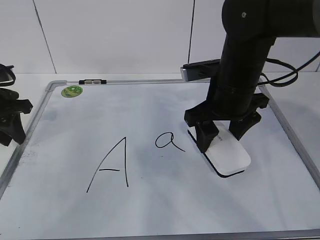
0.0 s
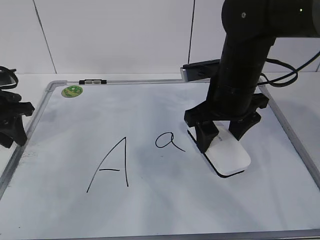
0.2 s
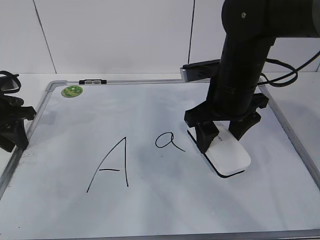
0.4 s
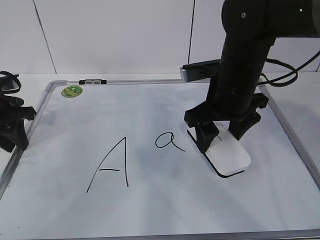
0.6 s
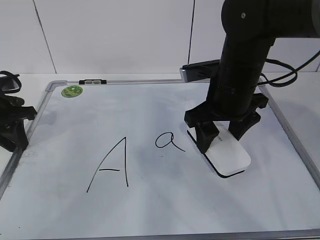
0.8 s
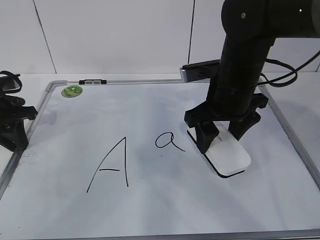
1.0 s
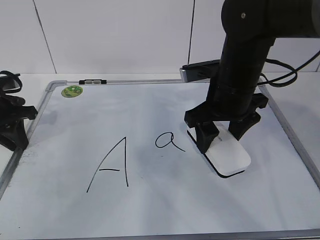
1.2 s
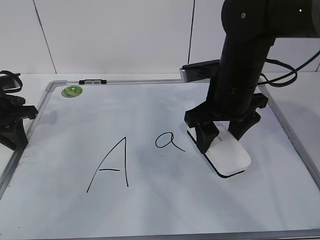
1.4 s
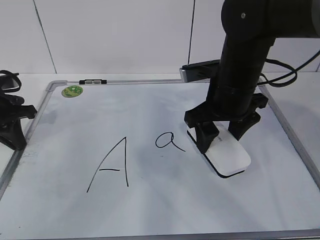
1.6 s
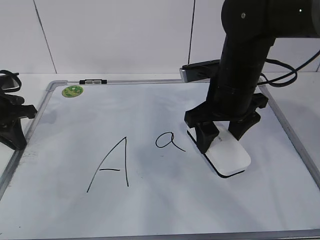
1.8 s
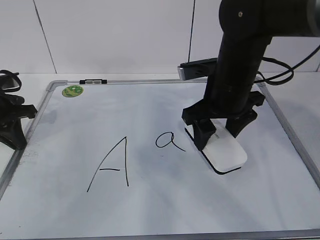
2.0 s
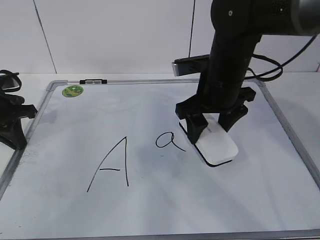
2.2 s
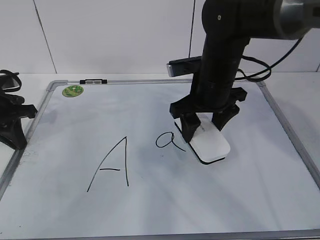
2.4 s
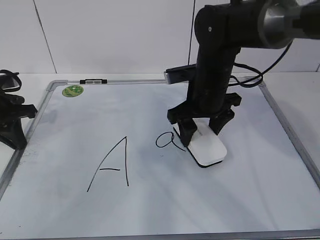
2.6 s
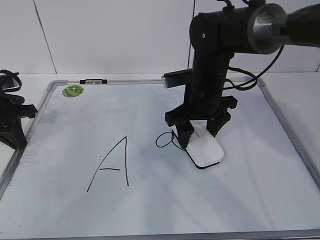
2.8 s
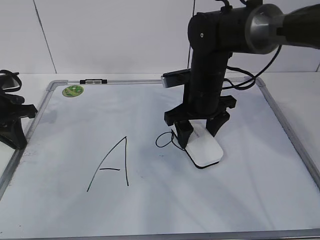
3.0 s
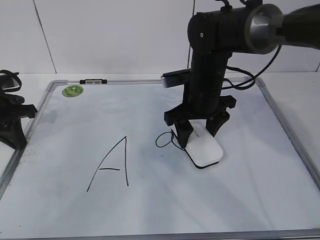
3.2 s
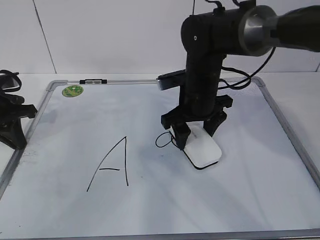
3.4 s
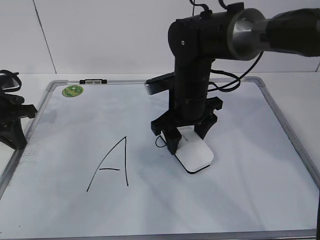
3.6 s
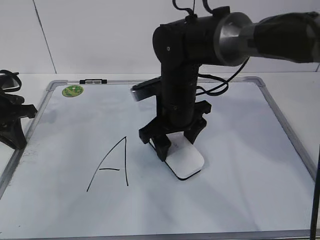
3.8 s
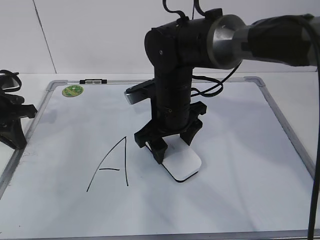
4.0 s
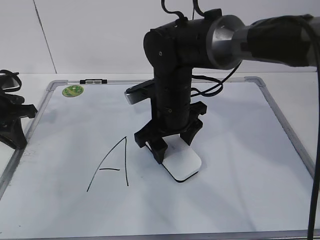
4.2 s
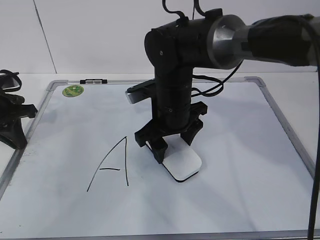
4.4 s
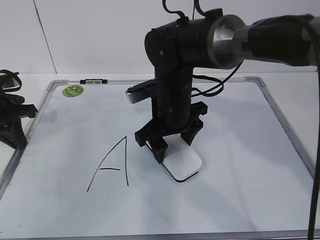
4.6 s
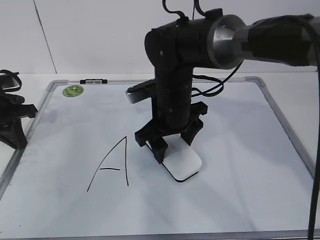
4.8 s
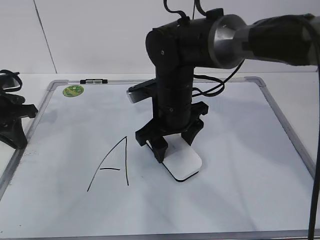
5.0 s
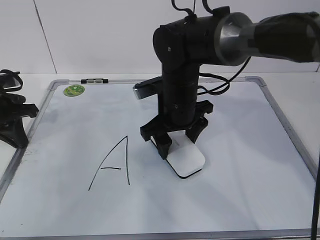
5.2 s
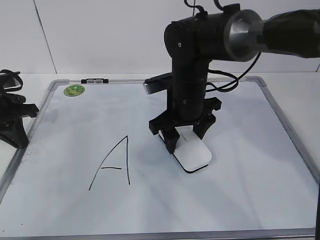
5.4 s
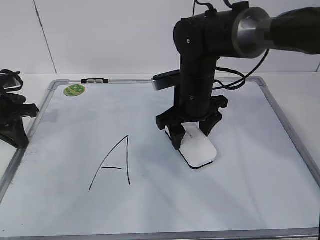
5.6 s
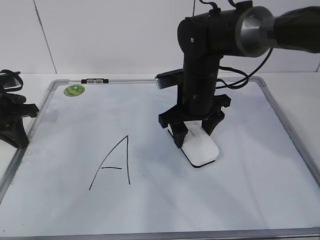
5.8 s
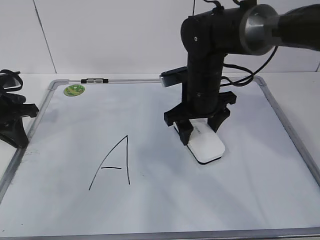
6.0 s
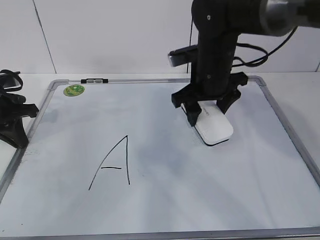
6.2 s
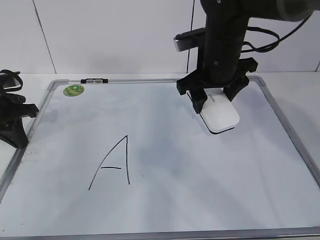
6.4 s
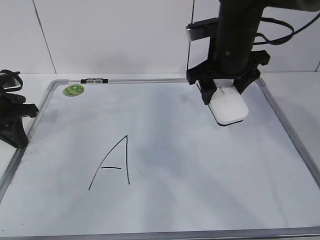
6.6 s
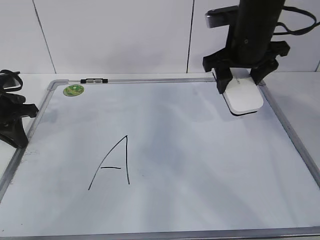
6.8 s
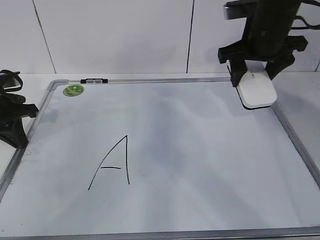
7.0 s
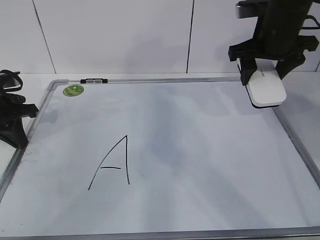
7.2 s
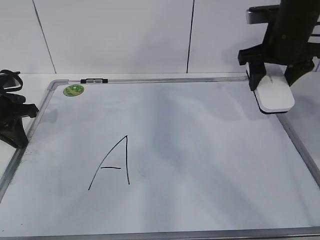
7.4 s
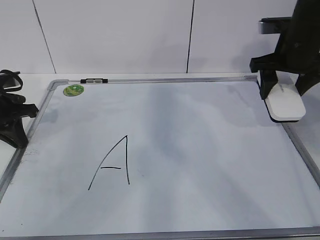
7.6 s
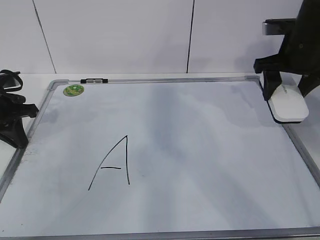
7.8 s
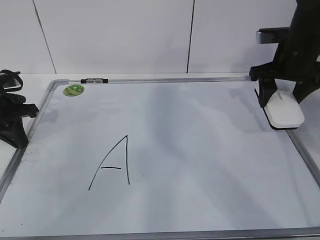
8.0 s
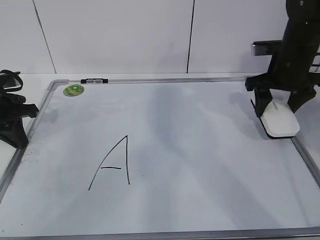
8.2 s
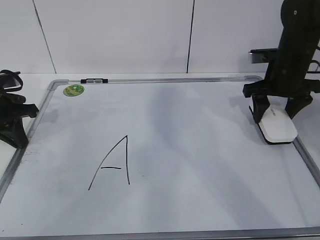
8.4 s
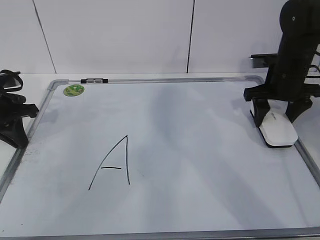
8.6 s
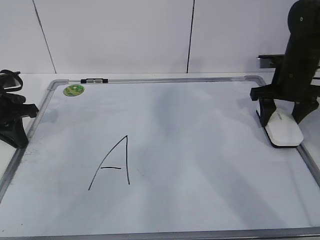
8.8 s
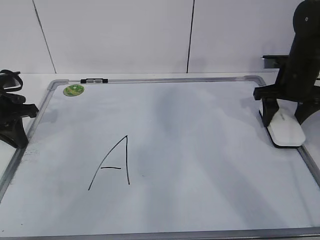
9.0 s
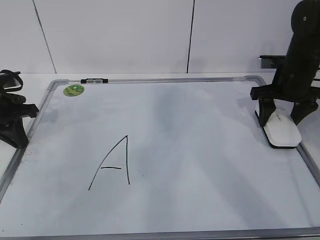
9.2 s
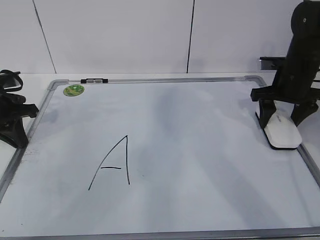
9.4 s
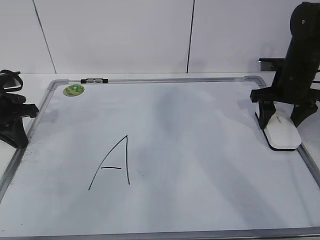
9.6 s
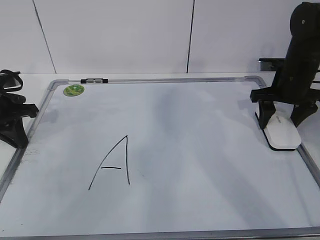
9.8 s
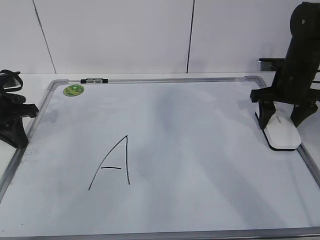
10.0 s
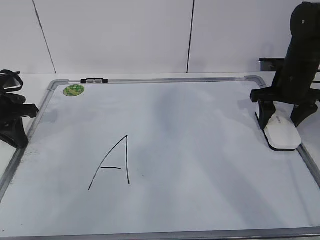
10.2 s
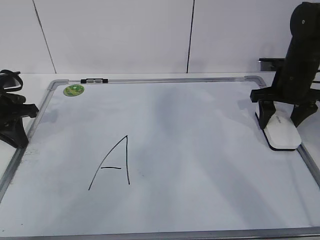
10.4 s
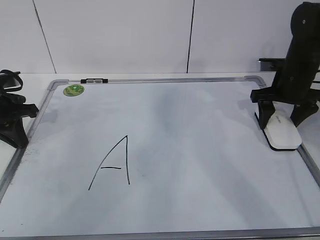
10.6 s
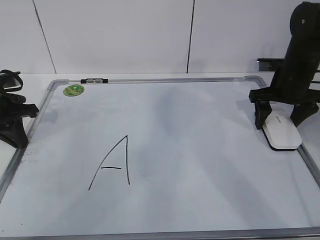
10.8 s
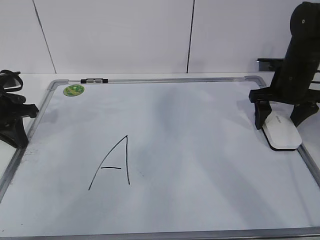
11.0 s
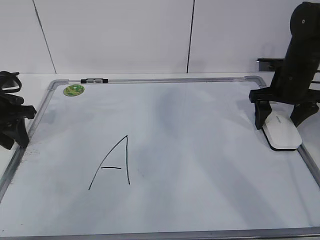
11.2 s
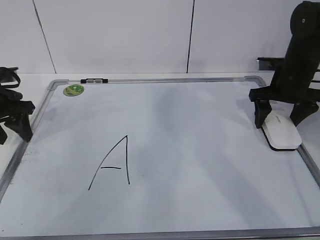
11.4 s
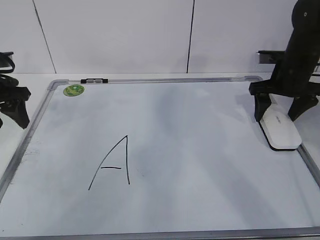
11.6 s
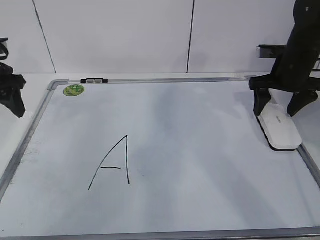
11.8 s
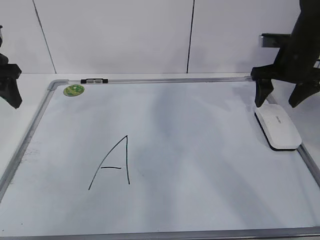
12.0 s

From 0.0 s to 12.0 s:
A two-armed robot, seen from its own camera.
Task of the whole recording: pick up the eraser on the blackboard and erase the letter "a".
Step, from 0.0 s to 2.8 s: Erase the letter a with your right hand.
Step, from 3.0 s to 6.6 s: Put down the eraser with your right hand.
From 0.0 s to 1.6 s: The left gripper closes.
From 1.6 s to 3.0 s: The right gripper goes roughly 5 cm forward.
From 3.0 s to 4.4 s: The right gripper goes about 5 cm to the left.
From 4.4 s to 6.0 s: The right gripper is displaced to the right by approximately 5 cm.
From 6.0 s to 7.6 s: The right gripper travels to the right and upward by roughly 15 cm.
From 7.6 s to 9.0 s: The right gripper goes roughly 5 cm downward.
From 9.0 s to 10.4 s: The two grippers keep their place.
From 10.4 s to 12.0 s: The left gripper heads upward, covering some 10 cm, and opens its fingers. The right gripper opens.

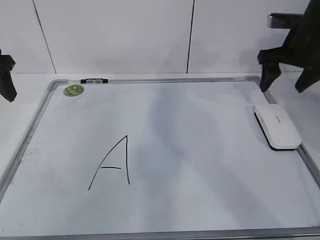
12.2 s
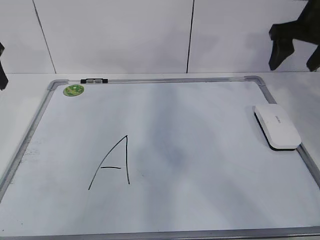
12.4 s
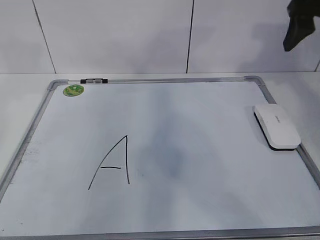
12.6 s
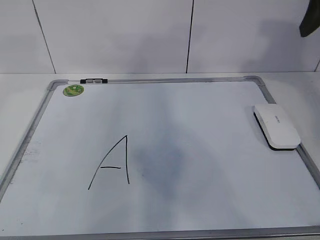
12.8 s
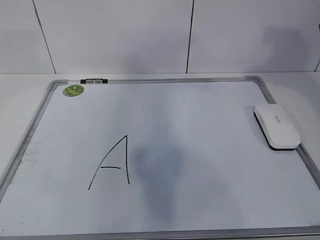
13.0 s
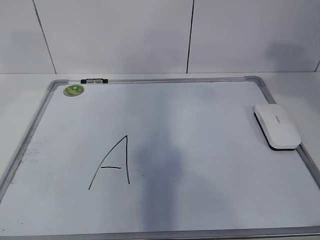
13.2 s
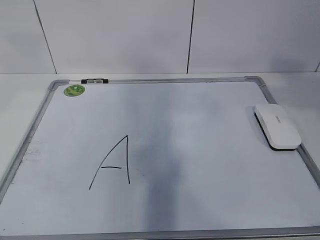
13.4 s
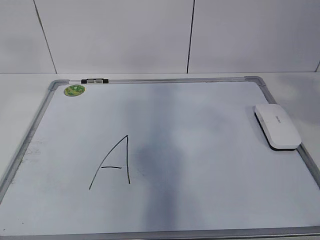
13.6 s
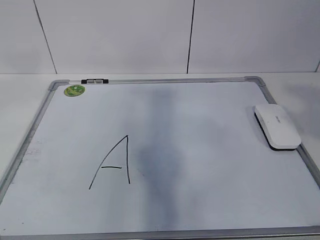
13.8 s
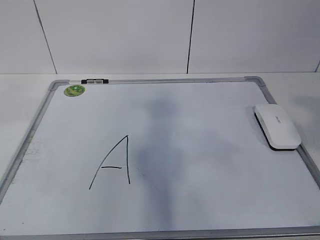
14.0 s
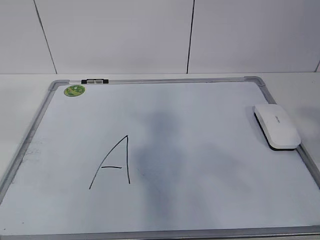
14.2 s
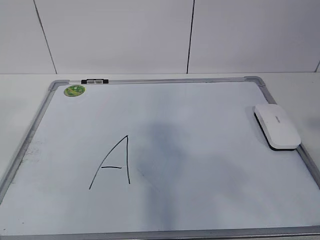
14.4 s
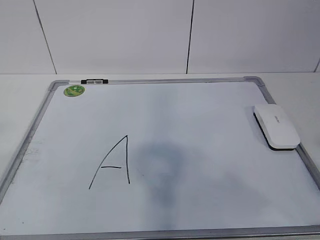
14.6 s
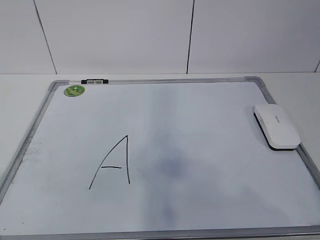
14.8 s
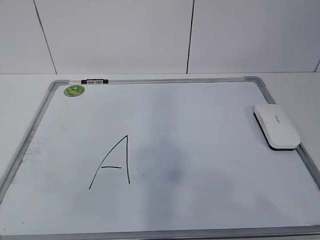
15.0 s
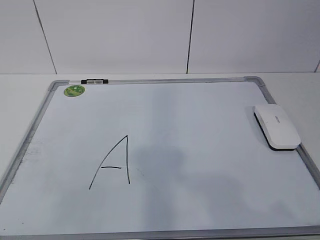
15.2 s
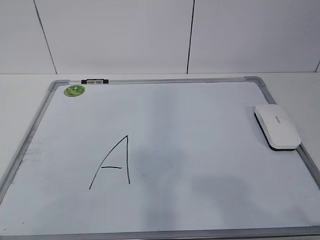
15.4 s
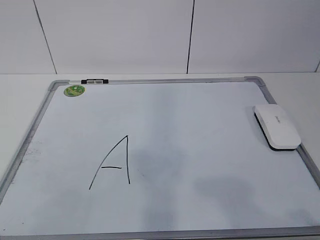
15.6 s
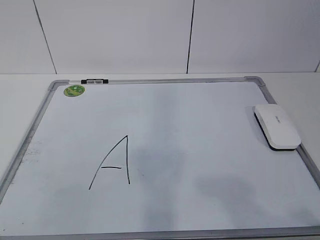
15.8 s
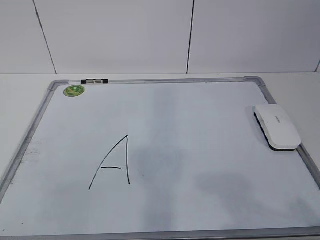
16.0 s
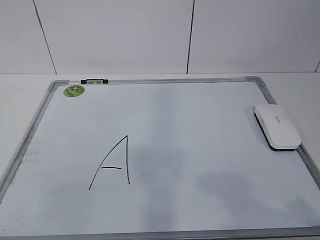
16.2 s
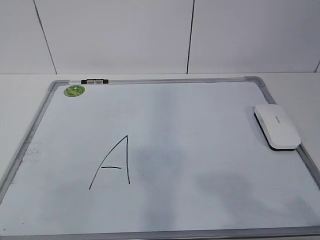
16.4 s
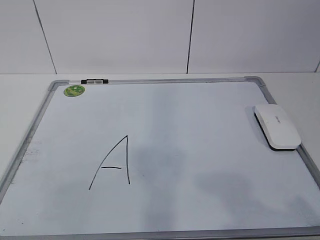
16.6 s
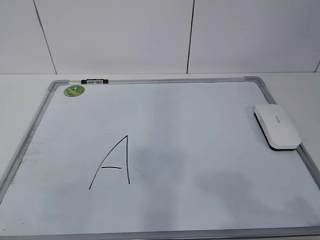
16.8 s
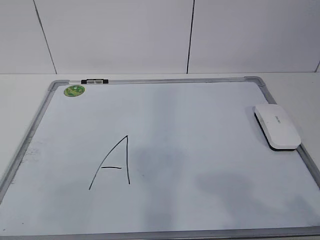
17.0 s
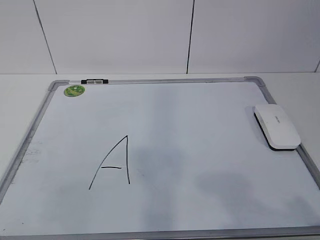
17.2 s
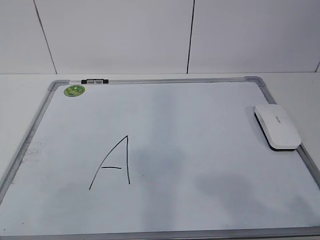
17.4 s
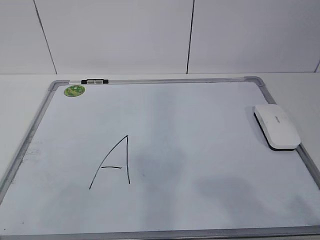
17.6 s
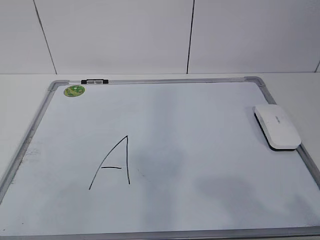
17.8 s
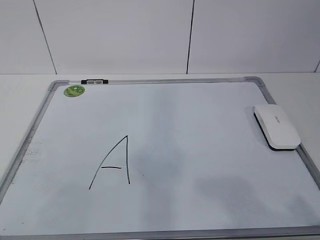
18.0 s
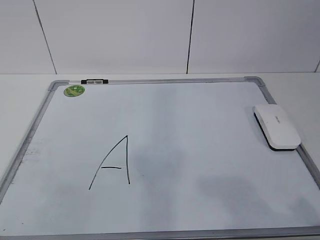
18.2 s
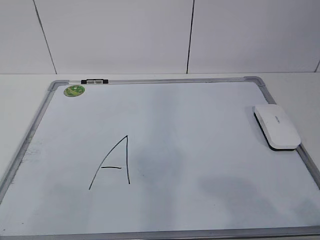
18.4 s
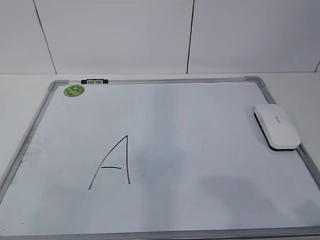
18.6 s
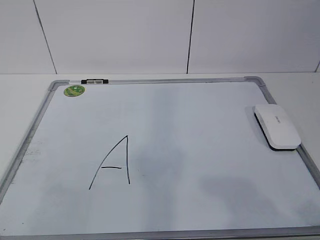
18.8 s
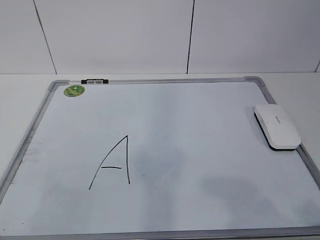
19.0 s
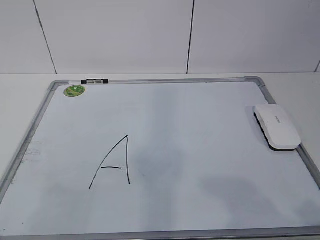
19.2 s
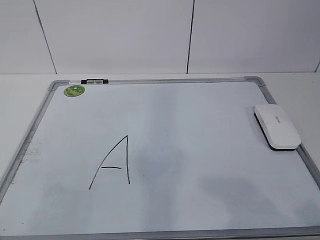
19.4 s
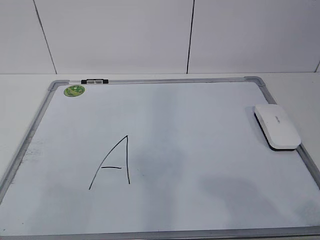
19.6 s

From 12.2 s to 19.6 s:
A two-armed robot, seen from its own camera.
Task of the whole recording: pick up the eraser on the blackboard and erase the letter "a".
From 12.2 s to 13.6 s: The right gripper heads backward and upward, covering some 30 cm. The left gripper is displaced upward and backward by approximately 25 cm.
From 13.6 s to 15.2 s: The two grippers go some 20 cm backward and downward.

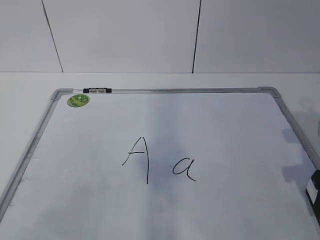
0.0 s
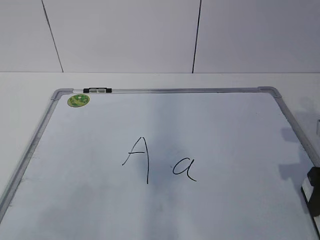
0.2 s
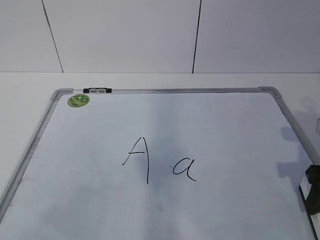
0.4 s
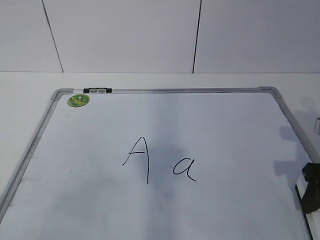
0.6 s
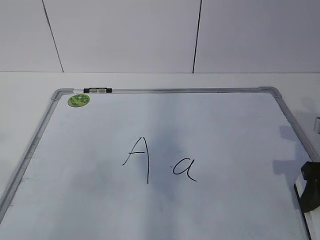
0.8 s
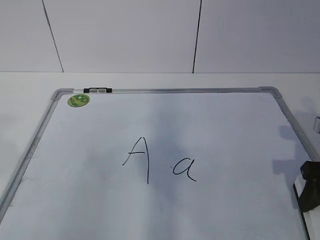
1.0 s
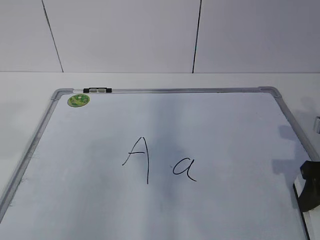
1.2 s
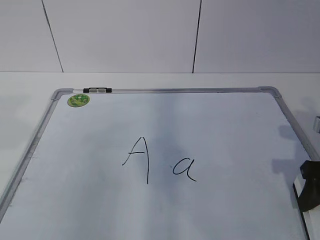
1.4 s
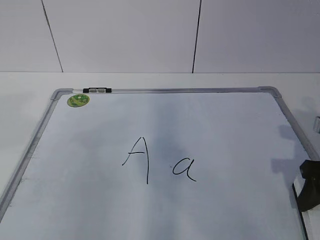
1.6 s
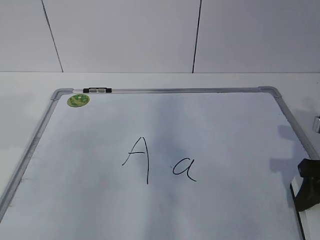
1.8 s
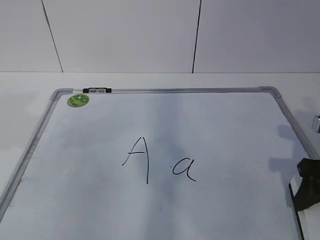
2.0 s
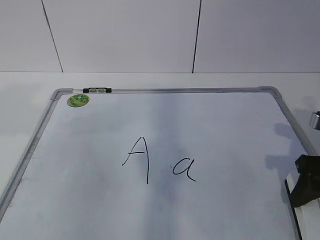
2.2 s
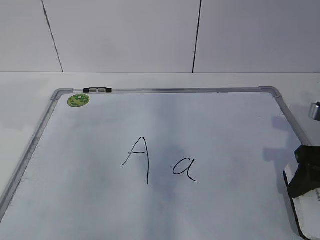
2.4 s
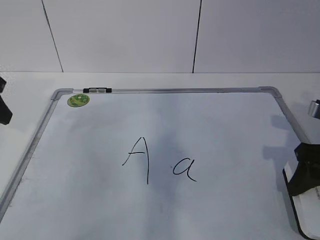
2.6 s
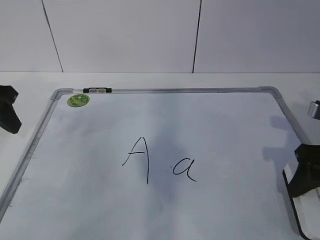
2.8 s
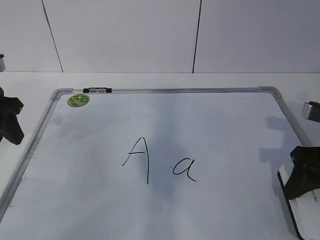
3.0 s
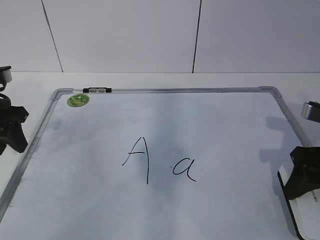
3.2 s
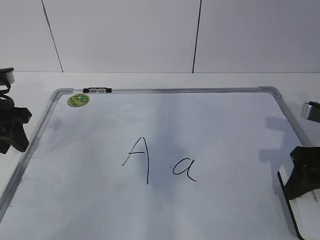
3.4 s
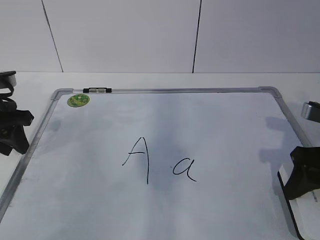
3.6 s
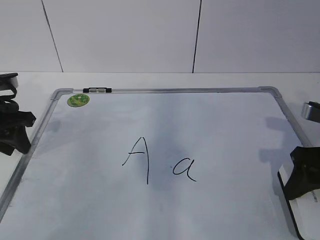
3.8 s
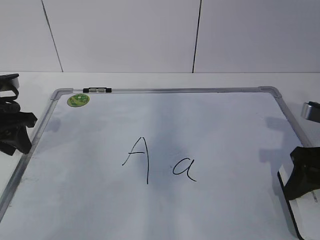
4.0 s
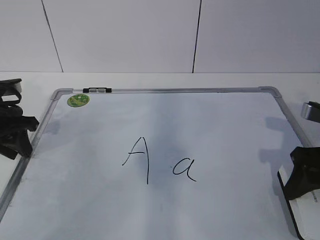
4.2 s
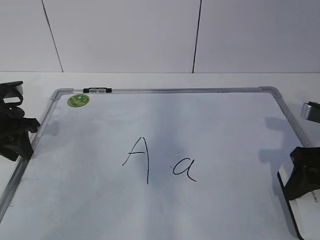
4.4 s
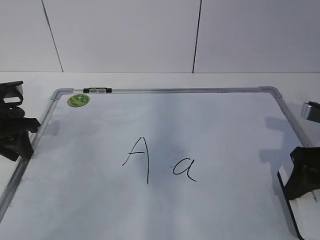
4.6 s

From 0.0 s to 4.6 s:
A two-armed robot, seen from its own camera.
Task of the whole recording: pick up the eraser on the blackboard and erase the letter "a".
Step, from 0.0 s to 2.6 s: Hold the drawing board steady with your left hand.
From 1.6 s to 3.0 s: The left gripper is displaced forward and downward by about 15 cm.
From 3.0 s to 4.6 s: The left gripper moves downward, roughly 5 cm.
